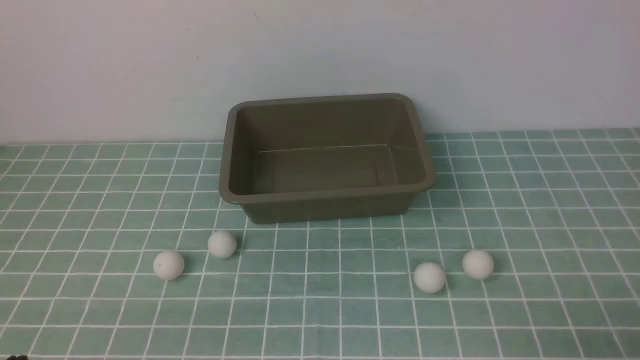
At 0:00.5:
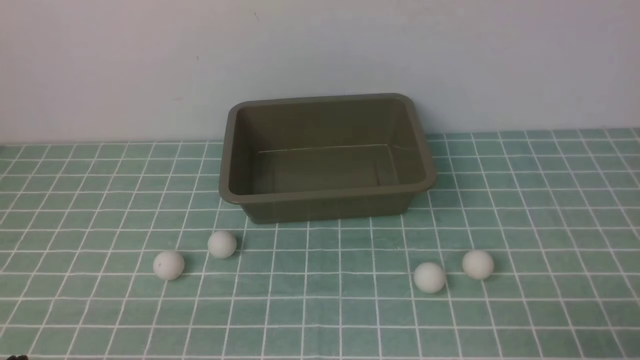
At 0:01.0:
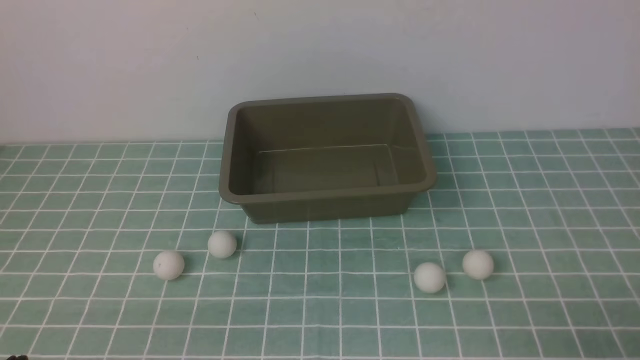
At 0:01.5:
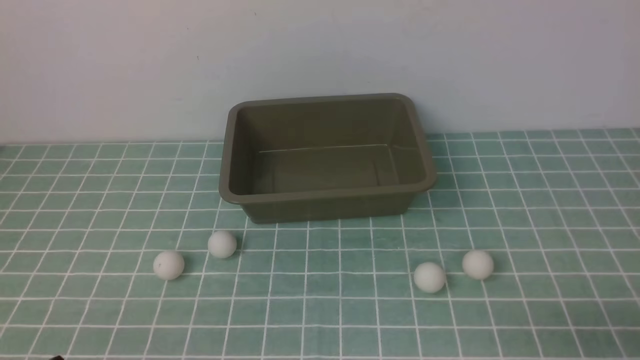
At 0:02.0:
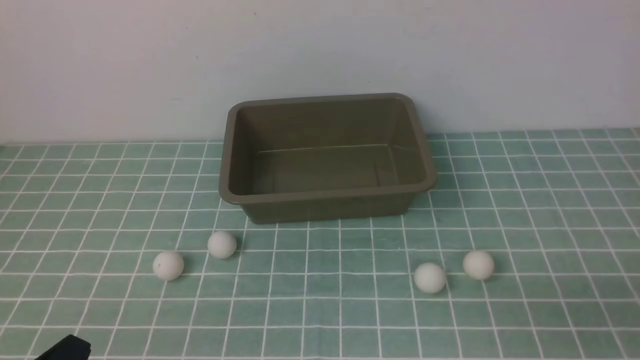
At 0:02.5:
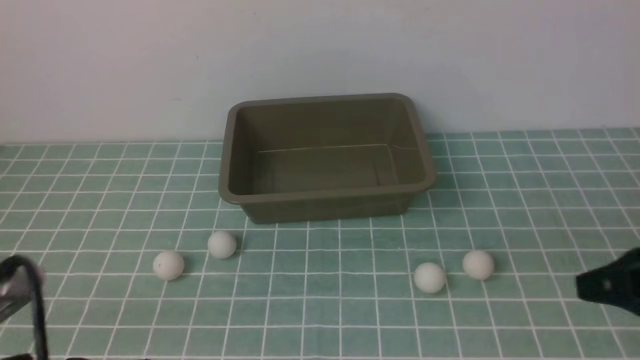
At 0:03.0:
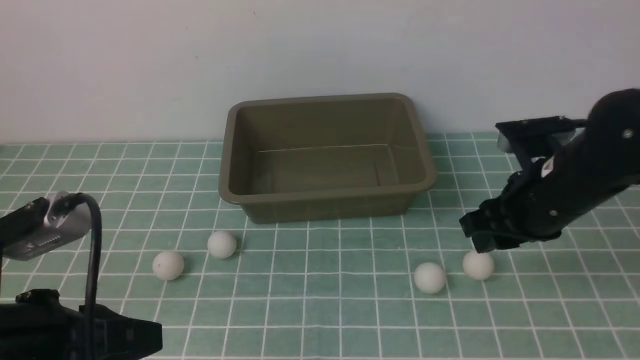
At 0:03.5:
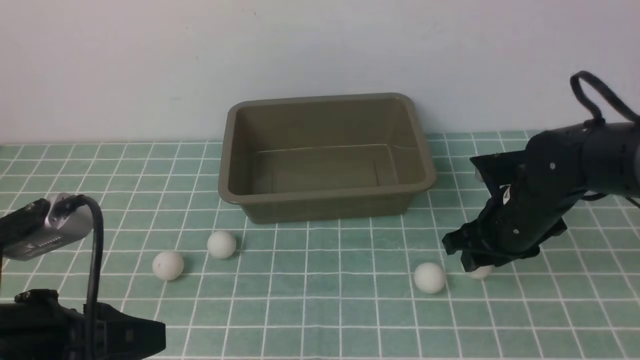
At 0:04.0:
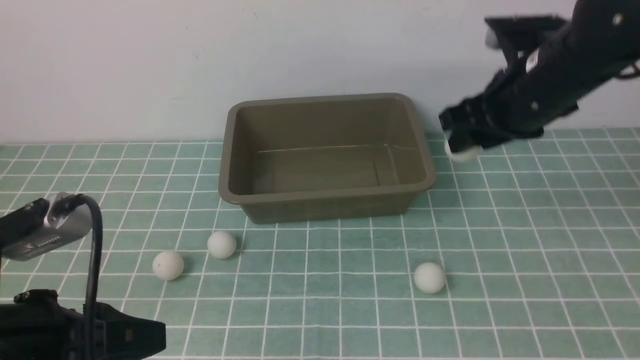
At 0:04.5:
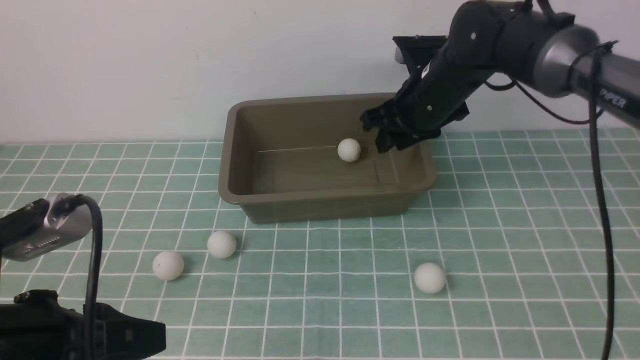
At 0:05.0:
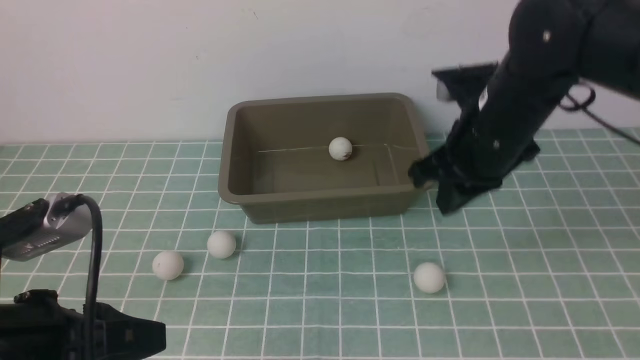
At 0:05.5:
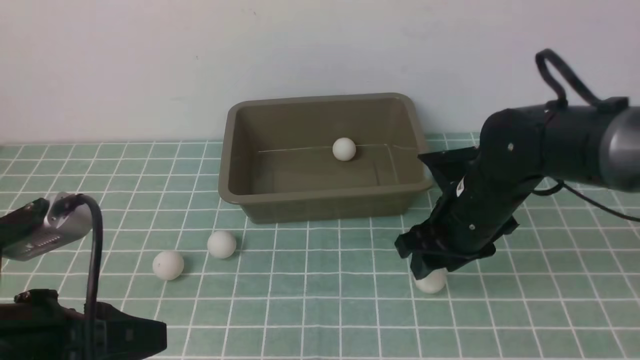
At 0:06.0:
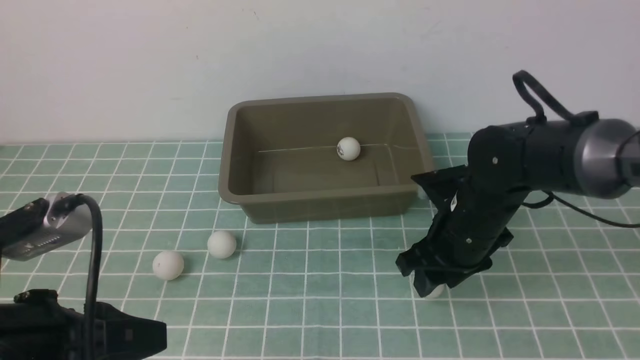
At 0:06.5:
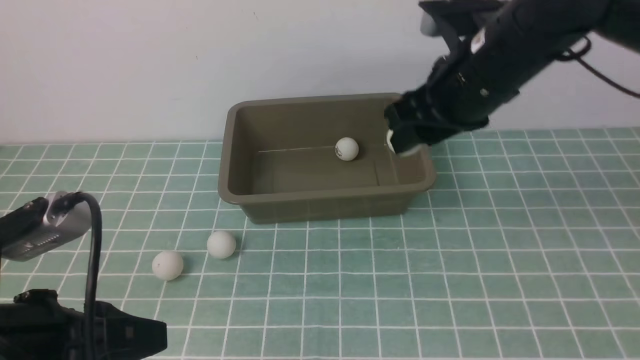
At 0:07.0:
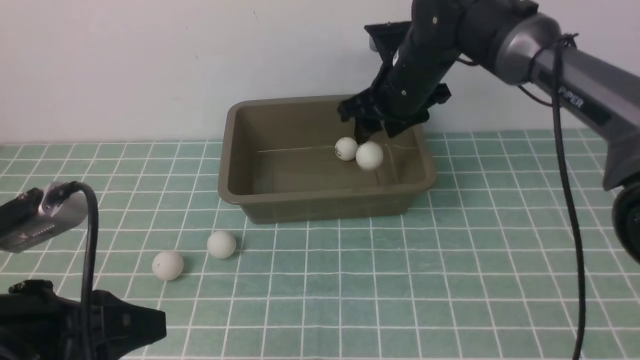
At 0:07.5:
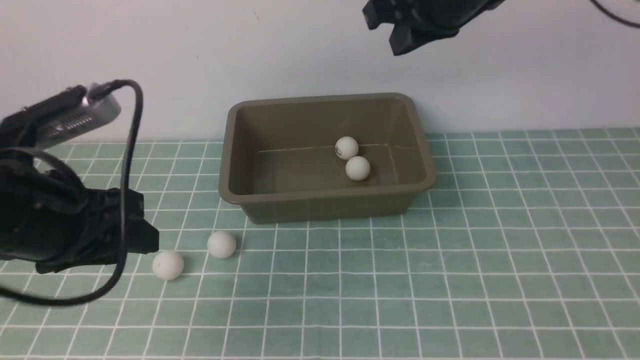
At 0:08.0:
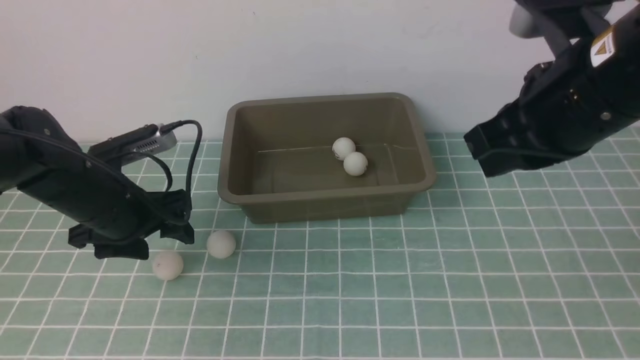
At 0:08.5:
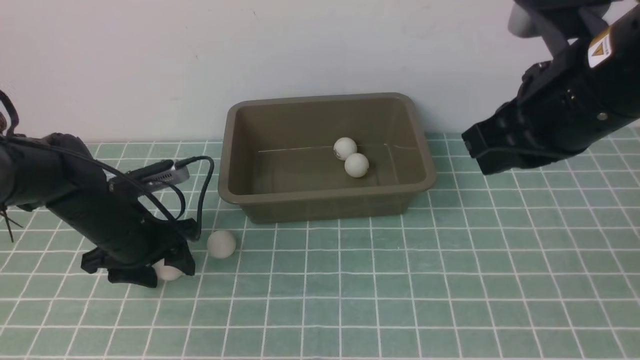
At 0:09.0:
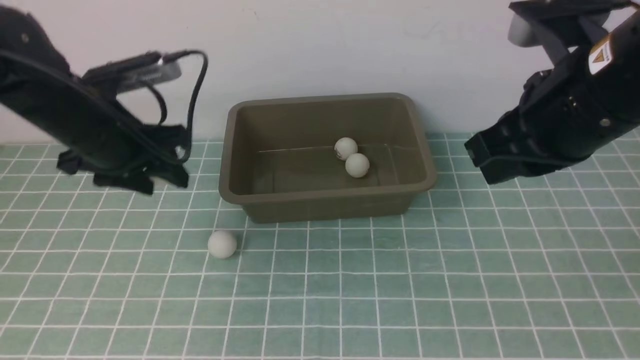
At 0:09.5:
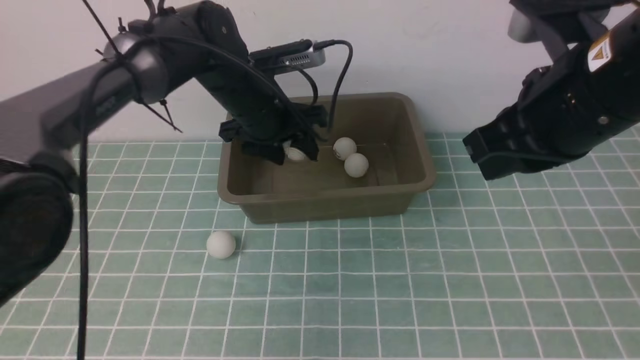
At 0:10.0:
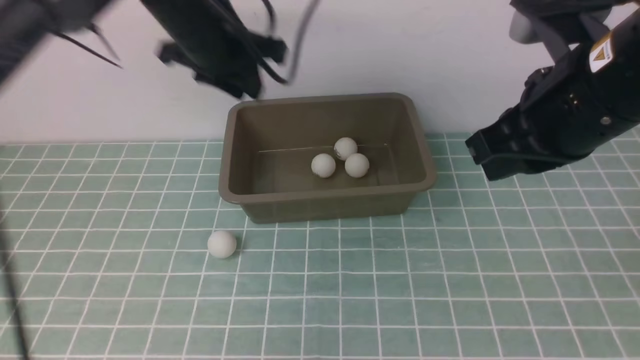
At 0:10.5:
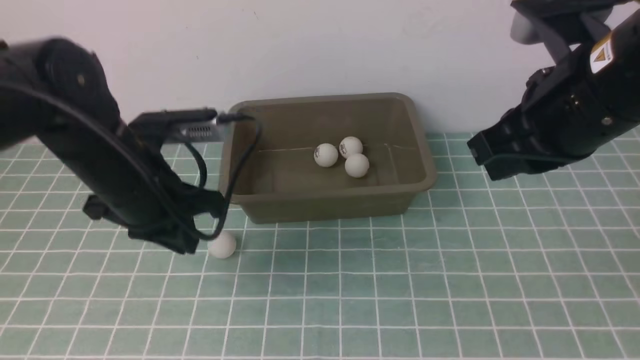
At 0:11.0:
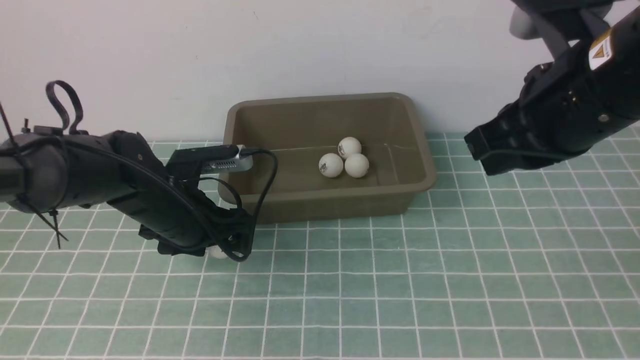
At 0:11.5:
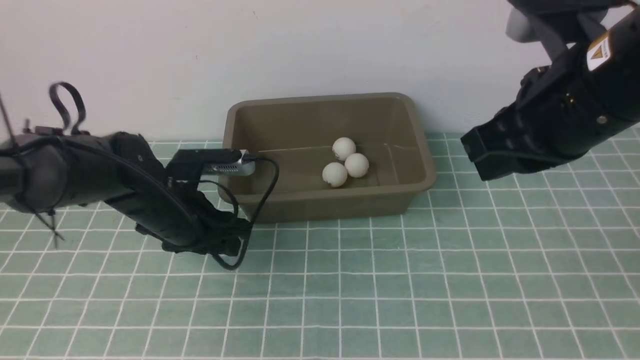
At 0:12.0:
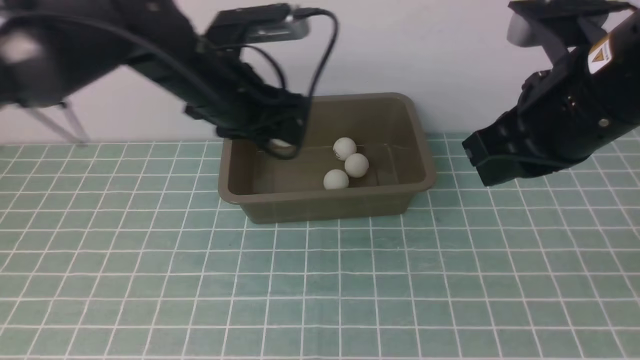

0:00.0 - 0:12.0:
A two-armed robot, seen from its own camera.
Step, 0:00.0 - 0:03.5: use the right arm to clamp the table tennis ball closest to it.
Step, 0:04.0 - 0:04.5: use the right arm to put the table tennis ball into the box.
Step, 0:05.0 - 0:06.0: use the right arm to clamp the table tennis ball closest to it.
Step, 0:06.5 - 0:07.0: use the right arm to put the table tennis ball into the box.
Step, 0:07.5 - 0:08.5: use the left arm to clamp the table tennis ball closest to it.
Step, 0:10.0 - 0:11.5: use the left arm to clamp the table tennis ball closest to it.
0:02.0 - 0:04.0: The left gripper heads forward and upward, covering approximately 10 cm, and opens. Meanwhile the right gripper travels forward and to the left by some 40 cm, and opens its fingers.
0:04.0 - 0:06.0: The right gripper shifts about 15 cm backward and downward, and opens up.
0:06.0 - 0:08.0: The left gripper goes approximately 25 cm forward and downward, and opens up; the right gripper moves upward, some 20 cm, and closes.
0:08.0 - 0:10.0: The left gripper shifts about 20 cm upward, and closes up.
0:10.0 - 0:12.0: The left gripper moves downward and to the right, about 10 cm, and opens its fingers.

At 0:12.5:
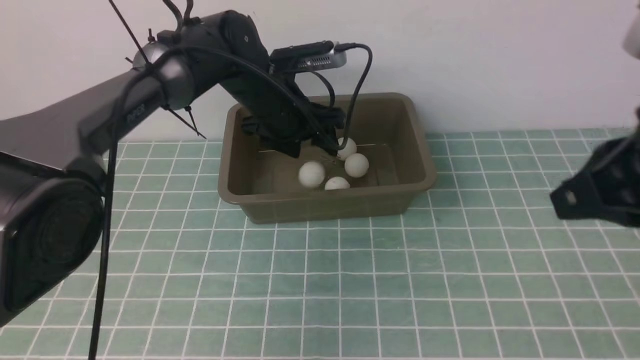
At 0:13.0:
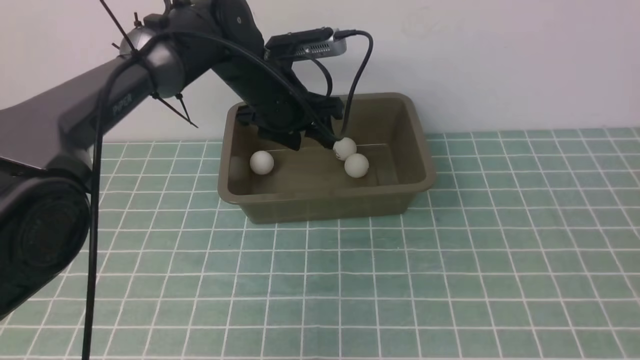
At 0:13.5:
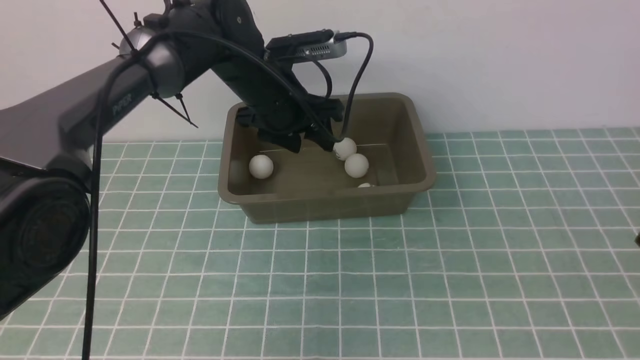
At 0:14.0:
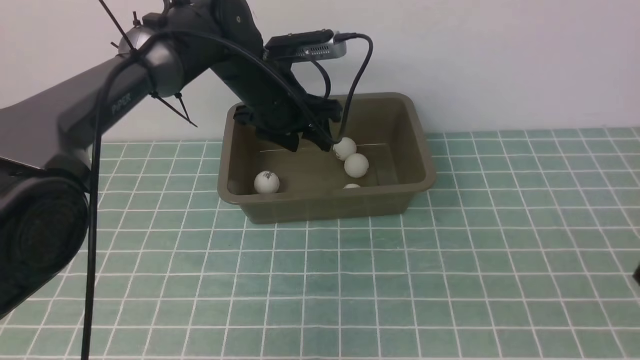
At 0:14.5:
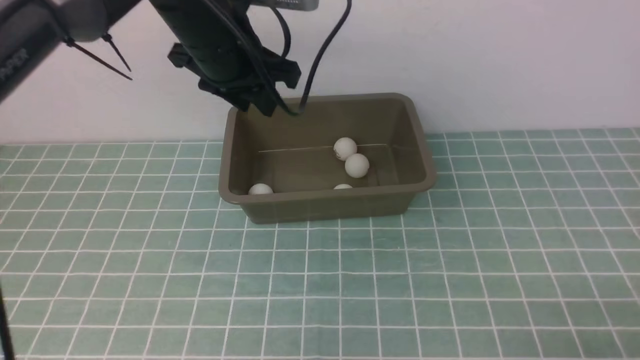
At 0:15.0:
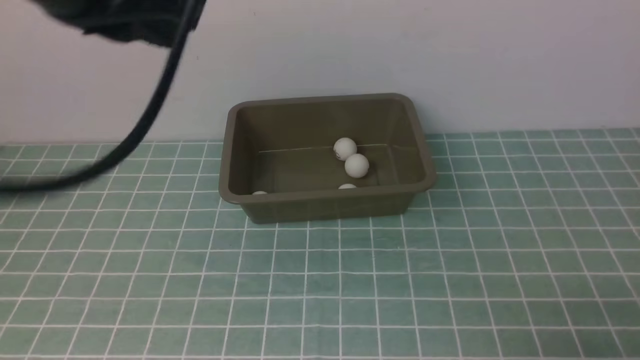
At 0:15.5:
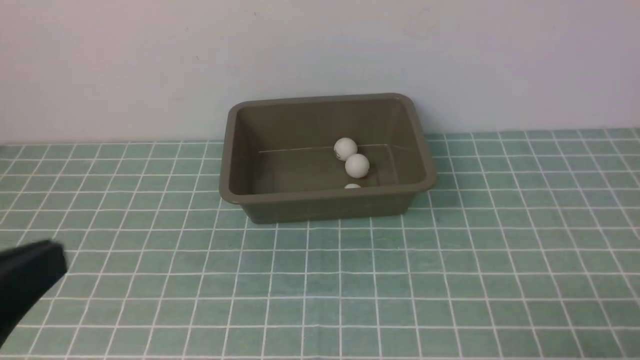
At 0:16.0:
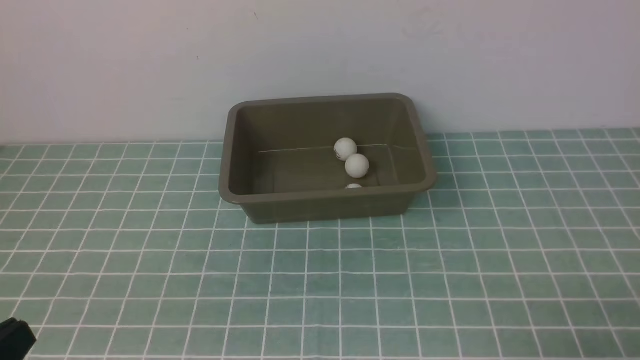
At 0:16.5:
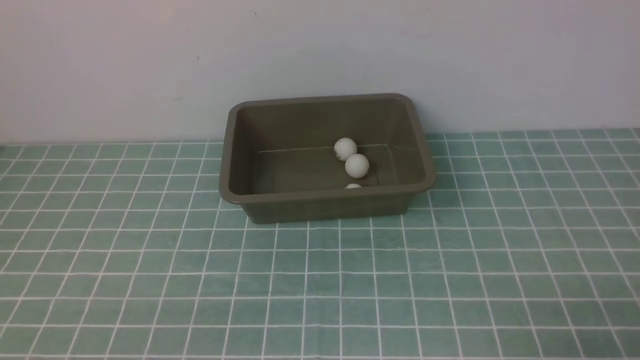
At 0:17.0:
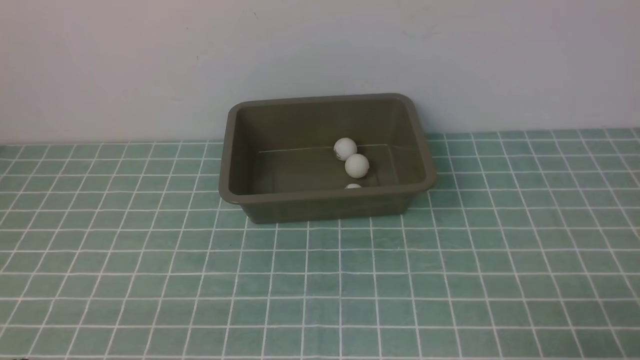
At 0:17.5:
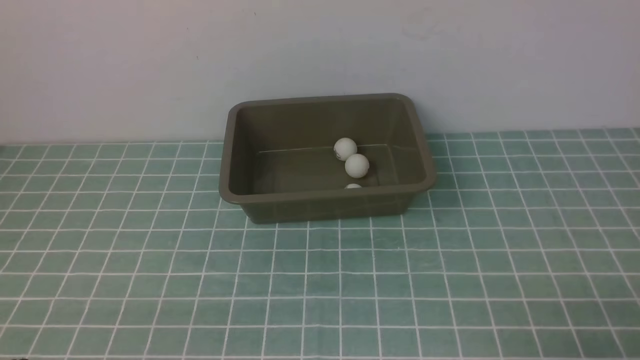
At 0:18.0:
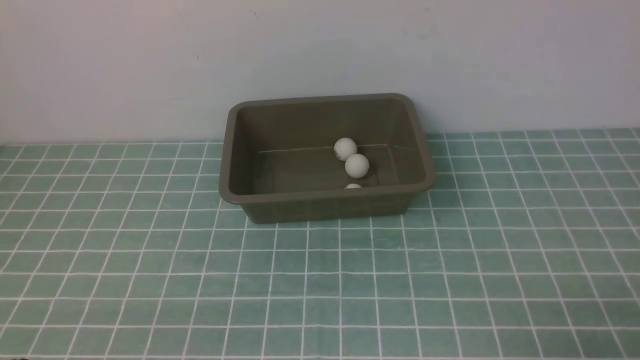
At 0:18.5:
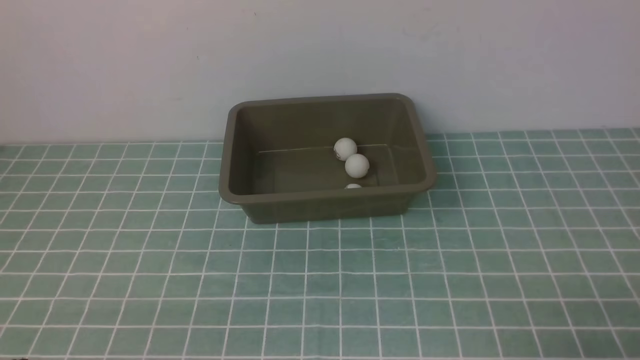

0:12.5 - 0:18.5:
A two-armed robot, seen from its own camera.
0:12.5 - 0:14.5: The right gripper shifts some 25 cm downward, backward and to the right, while the left gripper heads upward and backward, covering approximately 15 cm, and closes its fingers.
0:14.5 - 0:16.5: The left gripper shifts about 40 cm backward, downward and to the left, and closes its fingers.
